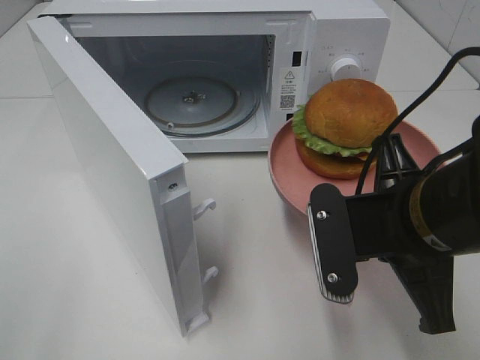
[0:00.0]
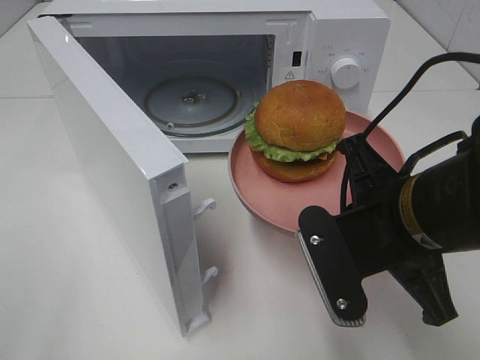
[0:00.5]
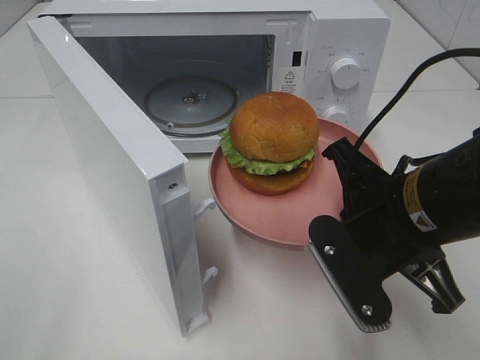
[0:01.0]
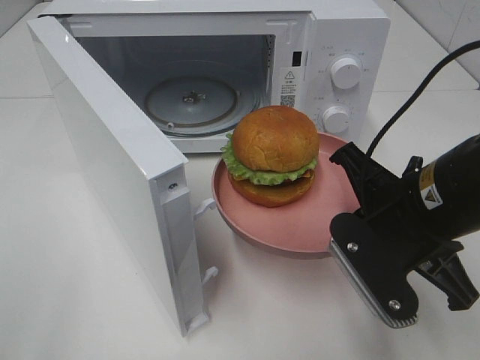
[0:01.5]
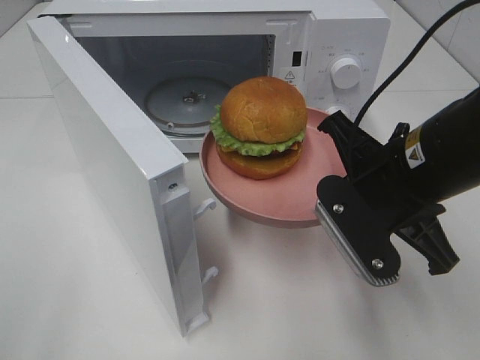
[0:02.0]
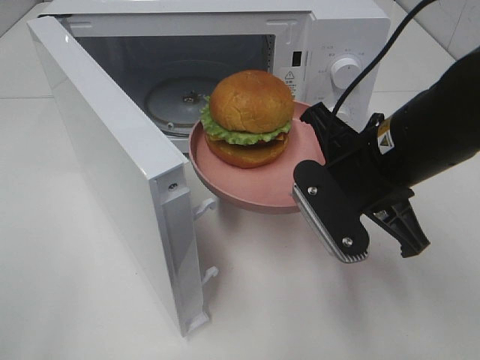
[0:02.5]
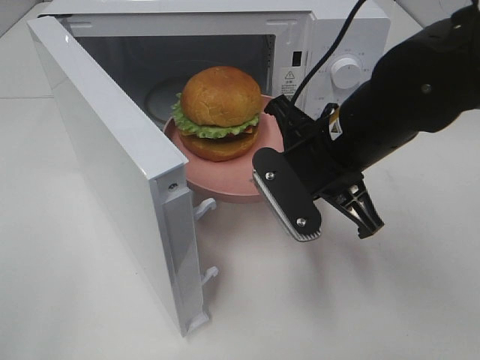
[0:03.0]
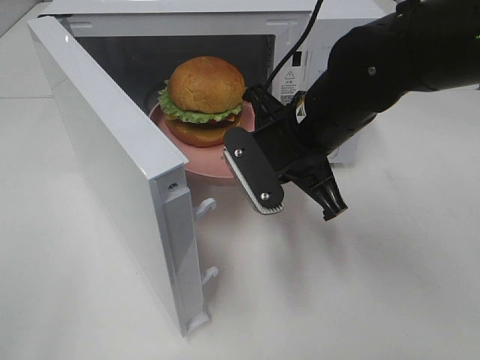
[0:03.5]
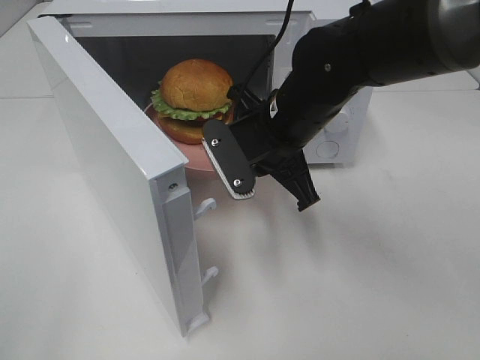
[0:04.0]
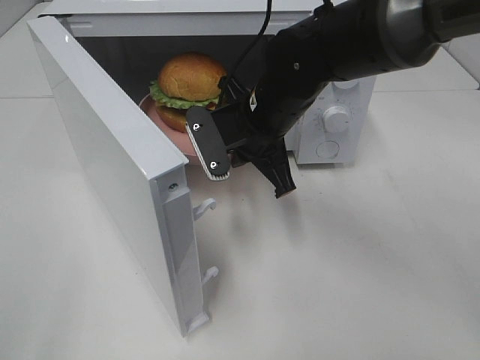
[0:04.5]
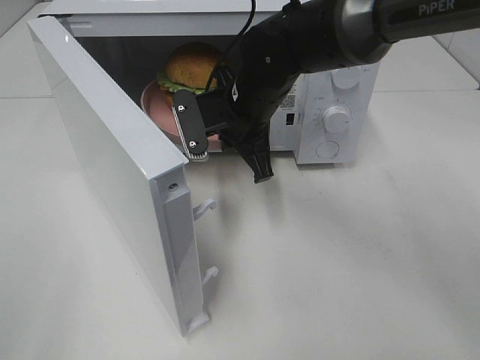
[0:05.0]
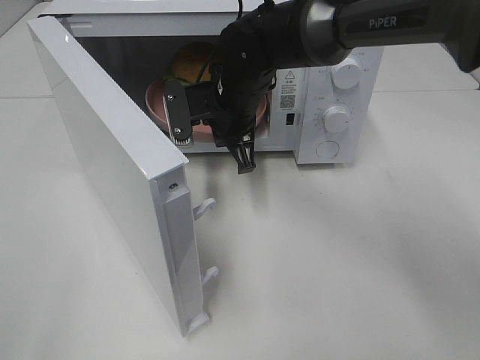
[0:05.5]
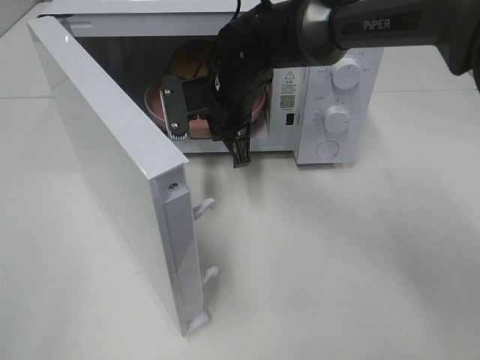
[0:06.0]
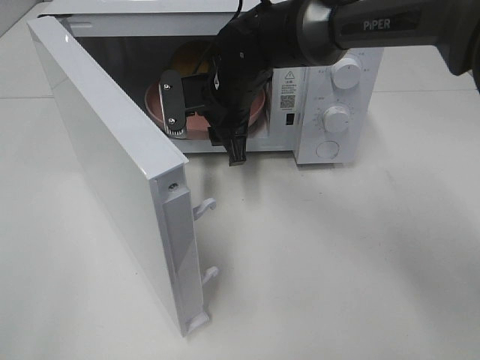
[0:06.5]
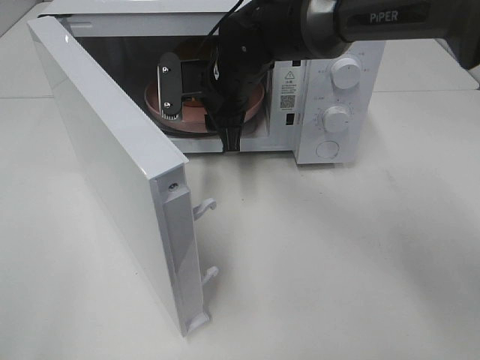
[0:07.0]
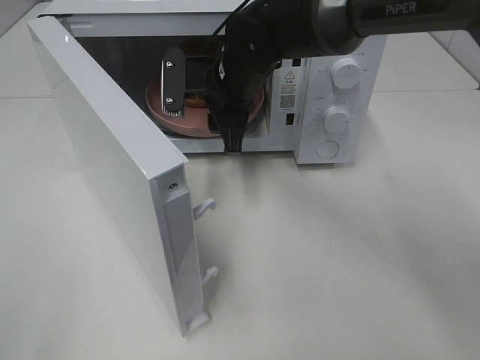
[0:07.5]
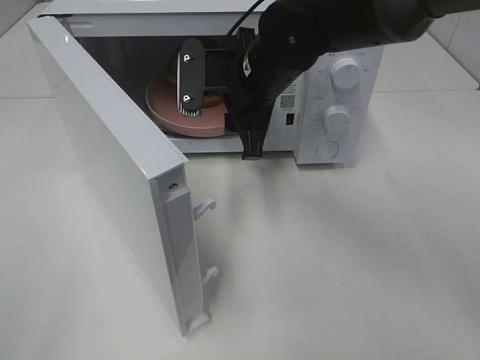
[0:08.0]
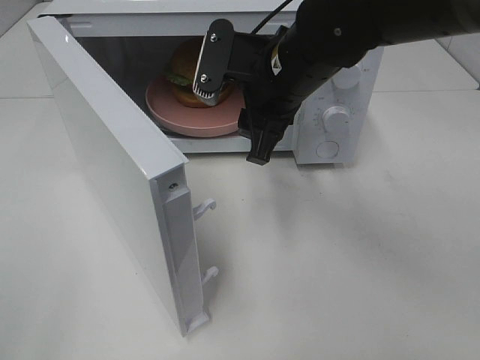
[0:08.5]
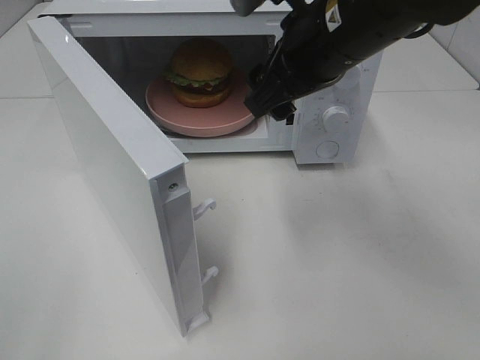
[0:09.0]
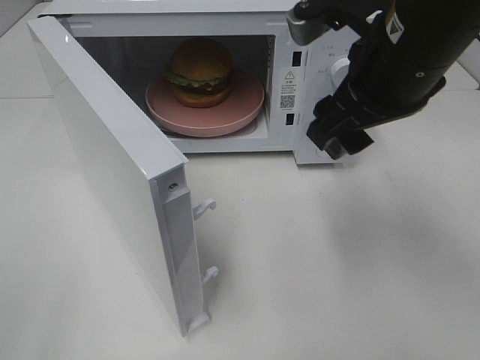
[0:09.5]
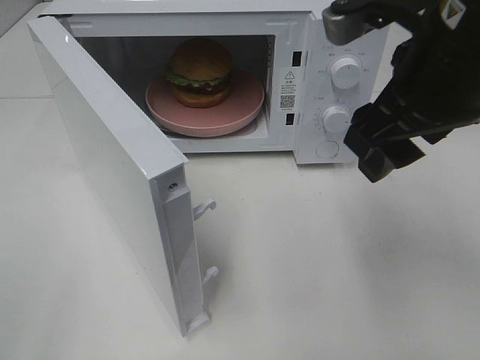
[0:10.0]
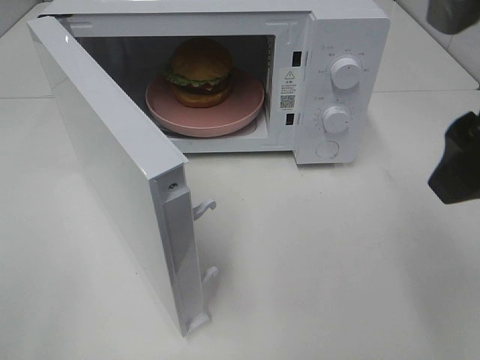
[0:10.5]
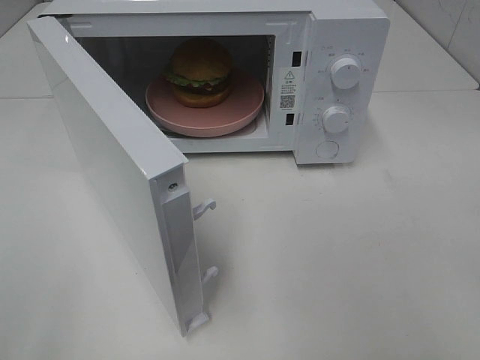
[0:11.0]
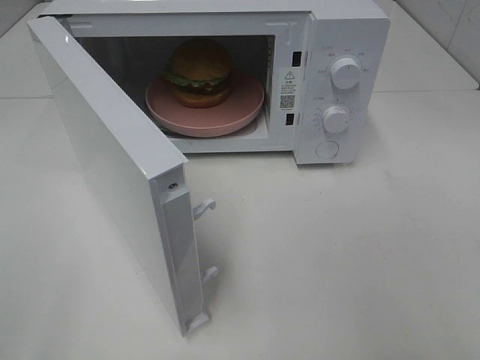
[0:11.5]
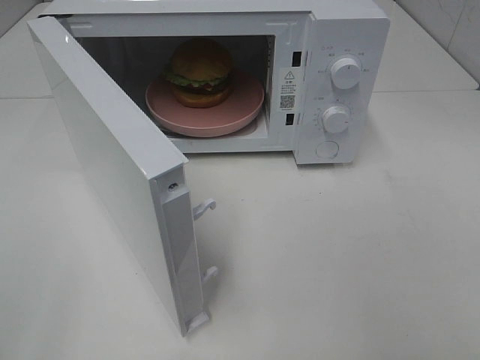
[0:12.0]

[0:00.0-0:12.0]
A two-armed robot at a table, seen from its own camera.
Task of the whole recording: Heat the burger.
Step, 0:00.0 to 0:06.0: Right hand: place the plate in the microwave.
0:02.0 to 0:04.0: The right gripper shifts roughly 15 cm forward and to the left.
0:04.0 to 0:06.0: The right gripper travels forward and to the left by some 10 cm.
0:06.0 to 0:08.0: The right gripper changes place by some 5 cm, and opens up.
0:08.0 to 0:10.0: The right gripper is displaced backward, to the right and upward by some 20 cm.
0:10.0 to 0:12.0: The right gripper is displaced backward and to the right by some 30 cm.

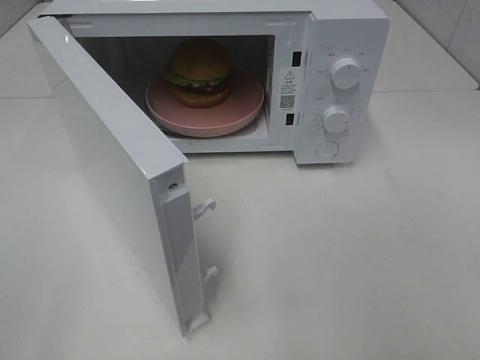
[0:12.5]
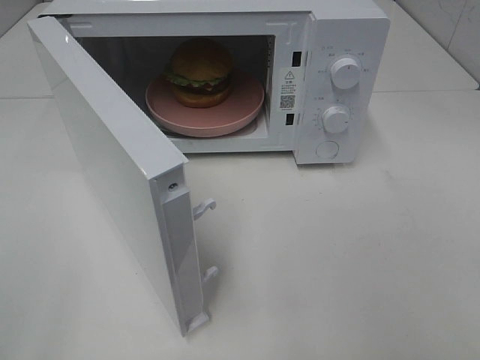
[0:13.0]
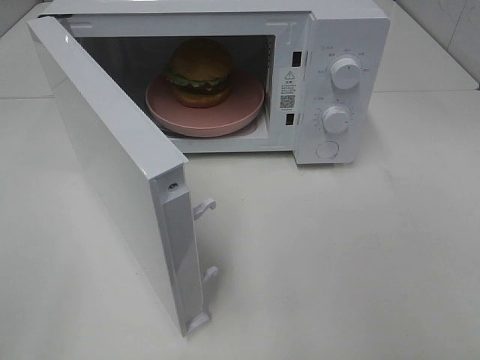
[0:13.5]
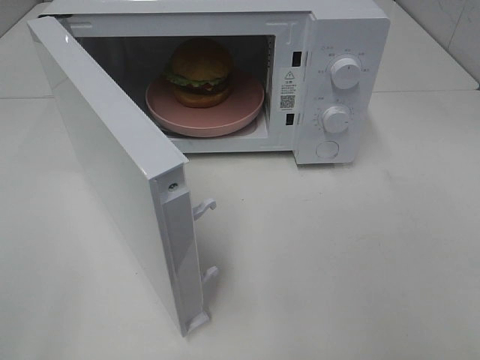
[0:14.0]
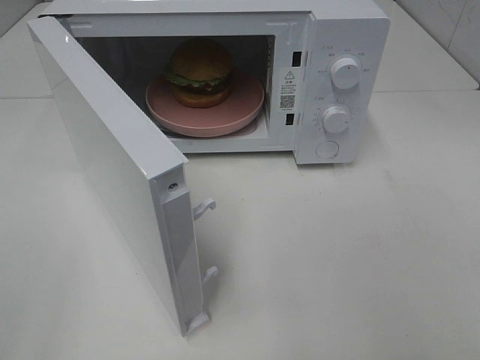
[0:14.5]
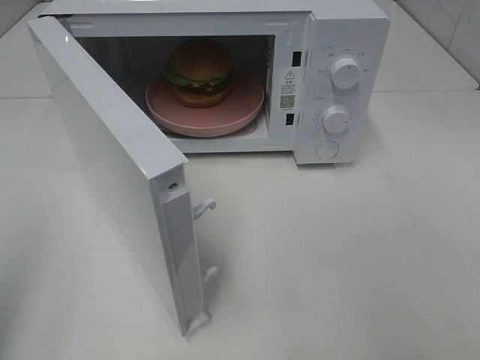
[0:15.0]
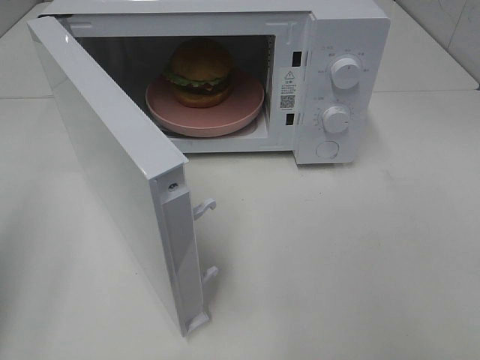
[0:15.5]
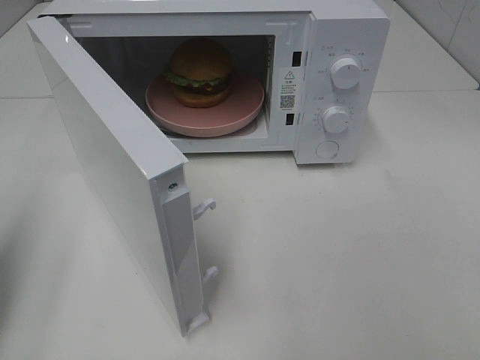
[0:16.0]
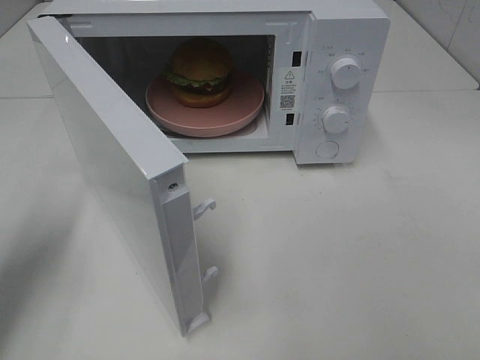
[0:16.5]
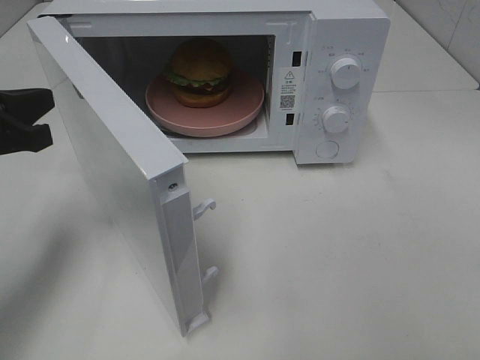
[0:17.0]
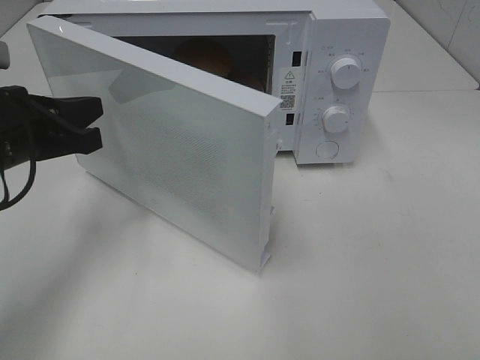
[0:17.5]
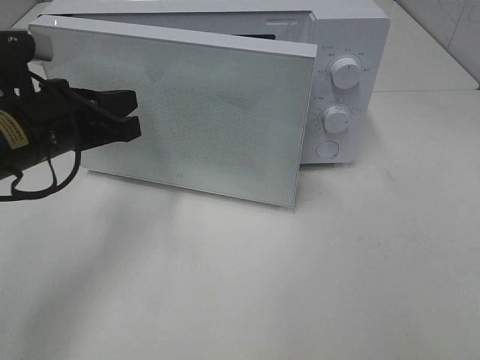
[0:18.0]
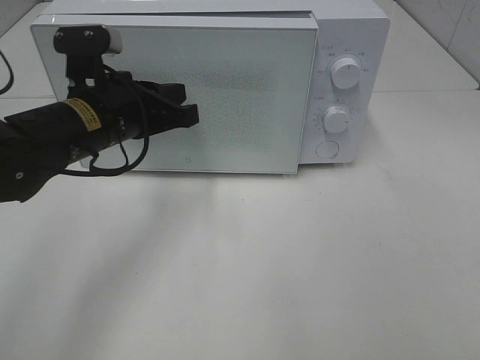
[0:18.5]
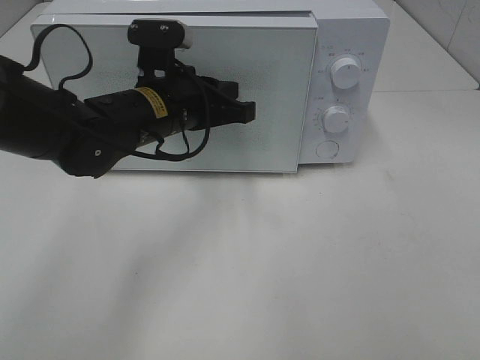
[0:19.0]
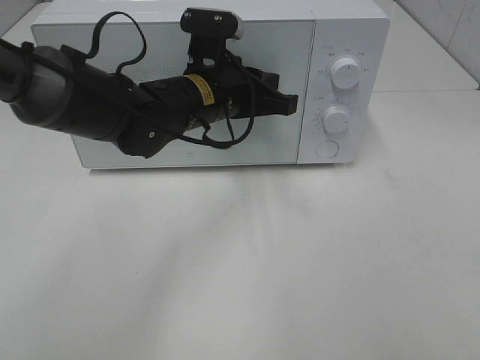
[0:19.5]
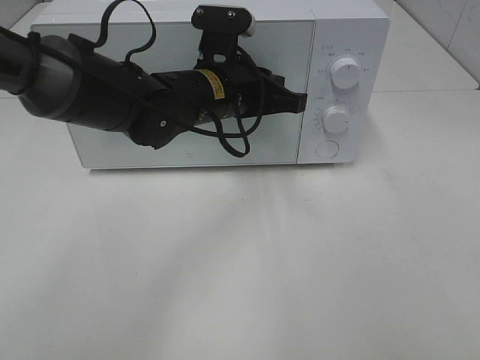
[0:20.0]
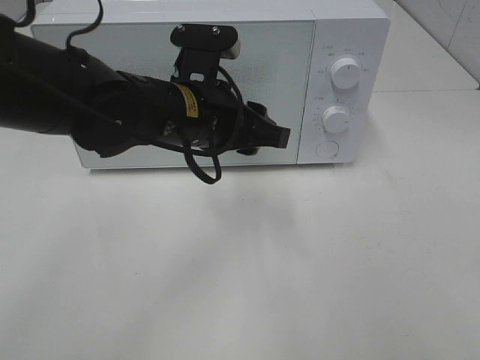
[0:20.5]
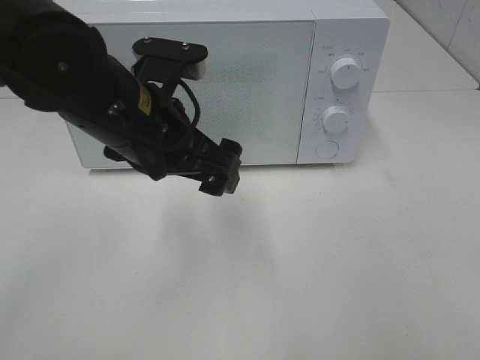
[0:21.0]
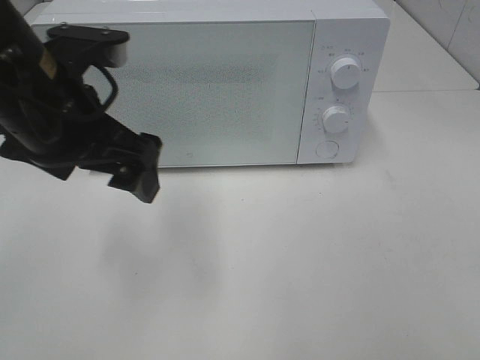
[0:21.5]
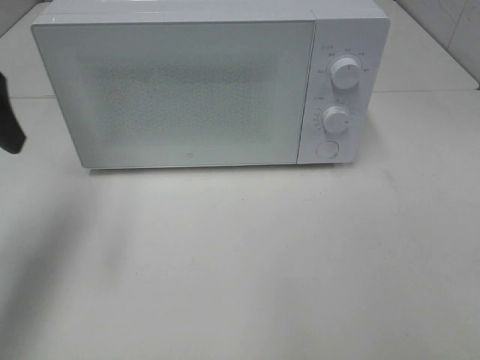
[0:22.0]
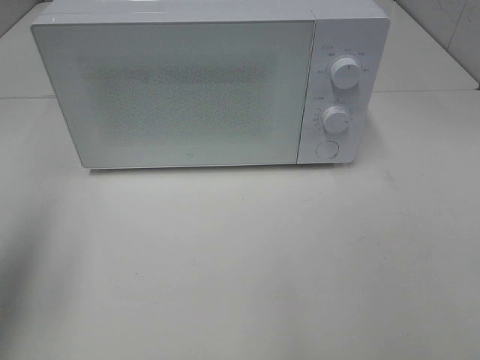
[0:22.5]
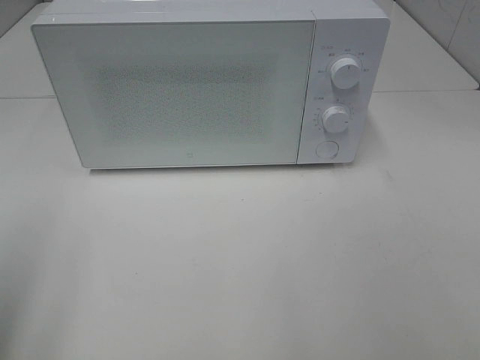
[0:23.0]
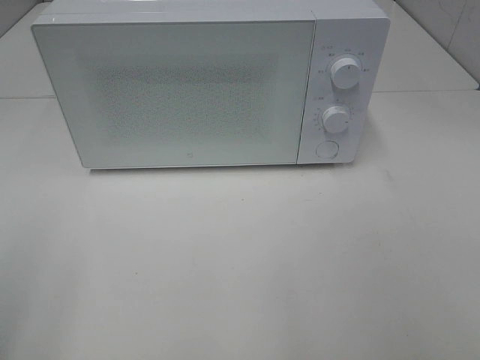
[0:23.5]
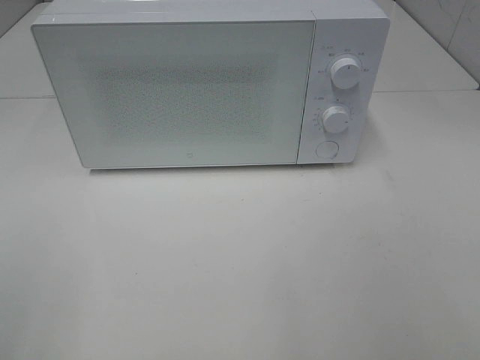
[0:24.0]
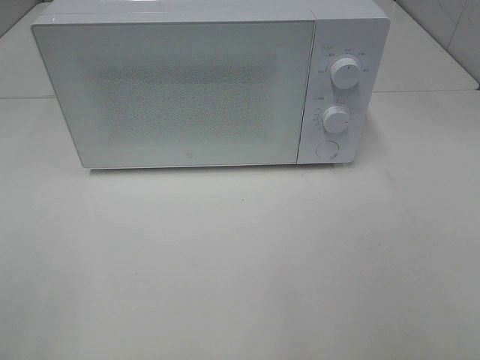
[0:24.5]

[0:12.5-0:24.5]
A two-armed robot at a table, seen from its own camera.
Task of the whole recording: Heat the burger.
Step, 0:12.5 to 0:20.0: Left hand: close the microwave door.
0:14.5 to 0:16.5: The left gripper goes about 25 cm forward and downward, and closes up.
0:16.5 to 0:18.5: The left gripper travels to the right and forward by about 20 cm.
0:18.5 to 0:20.5: The left gripper shifts roughly 10 cm to the right, and opens up.
0:20.5 to 0:22.5: The left gripper travels to the left and upward by approximately 30 cm, and opens its fingers.
0:22.5 to 0:24.5: The left gripper goes some 20 cm backward.

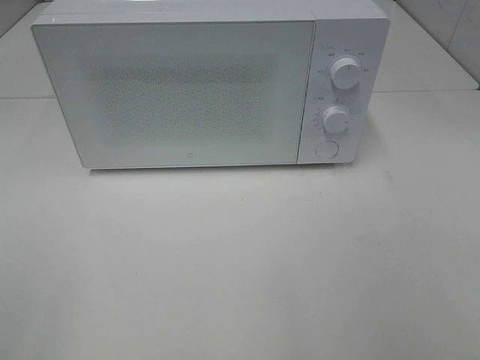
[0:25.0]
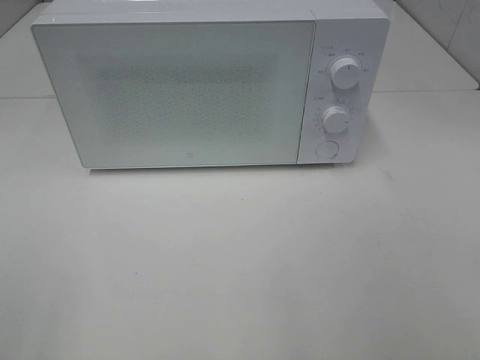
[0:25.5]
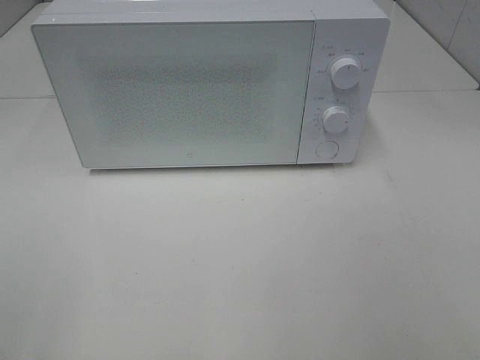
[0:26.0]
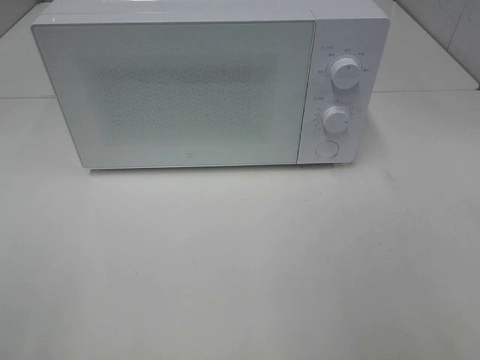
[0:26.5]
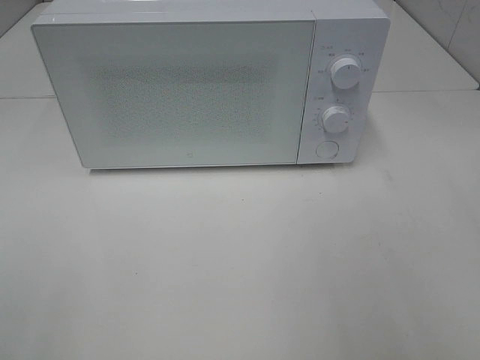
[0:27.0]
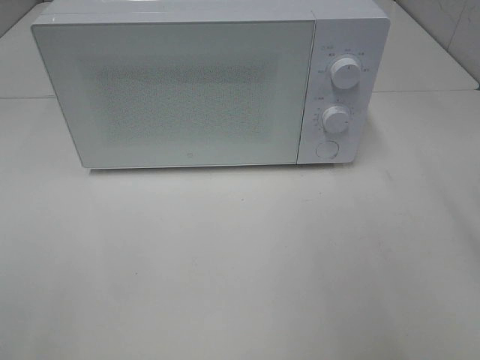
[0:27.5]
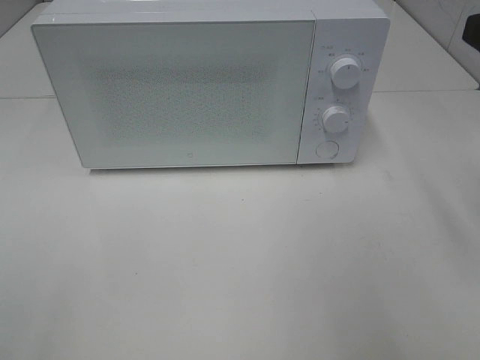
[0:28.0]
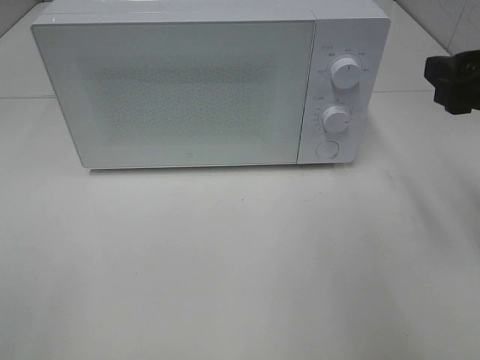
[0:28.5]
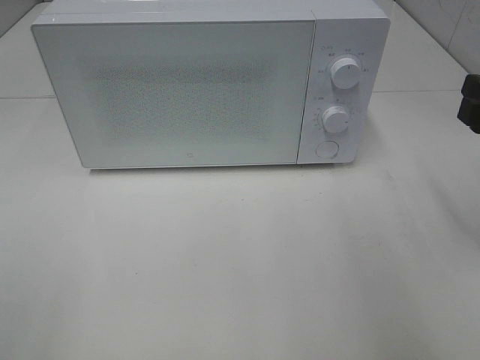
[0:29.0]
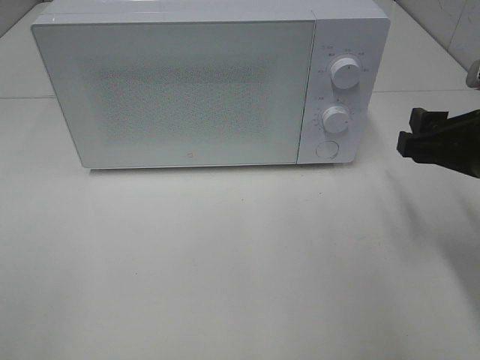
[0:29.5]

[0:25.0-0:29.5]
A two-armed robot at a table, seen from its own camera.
Task of the whole recording: Heat the burger.
0:27.0 to 0:29.5: The right gripper is displaced downward and forward by roughly 20 cm.
